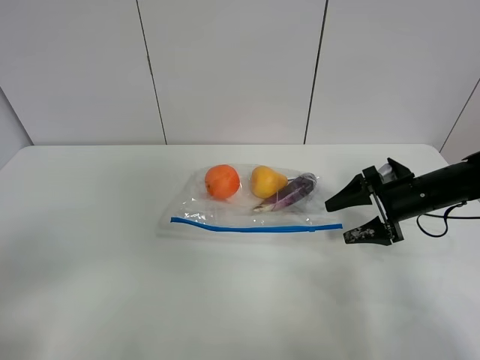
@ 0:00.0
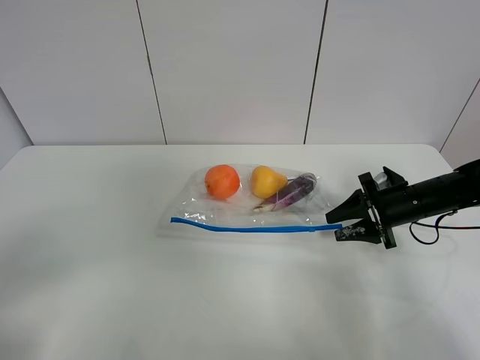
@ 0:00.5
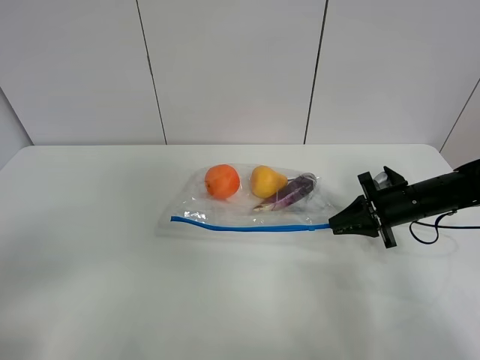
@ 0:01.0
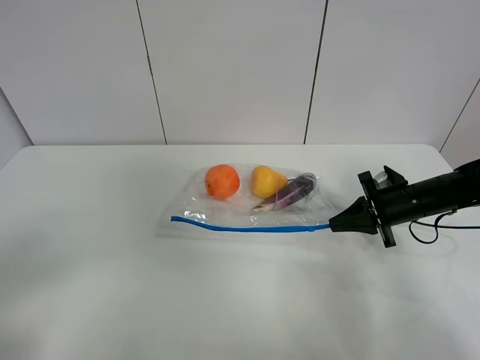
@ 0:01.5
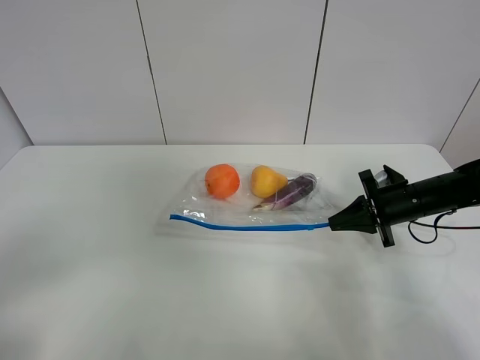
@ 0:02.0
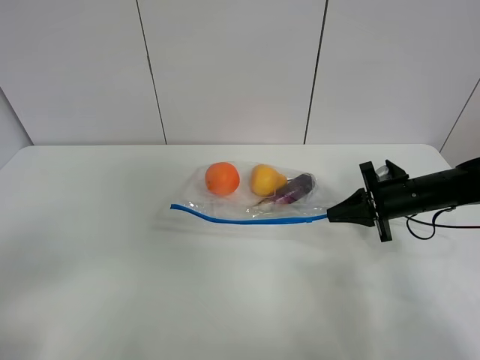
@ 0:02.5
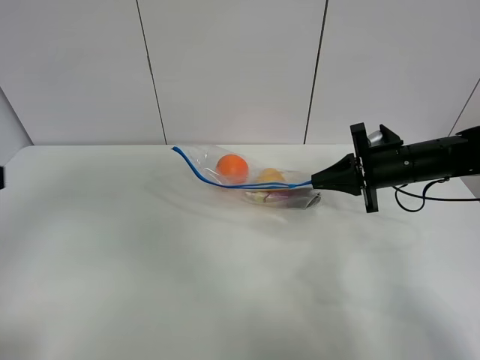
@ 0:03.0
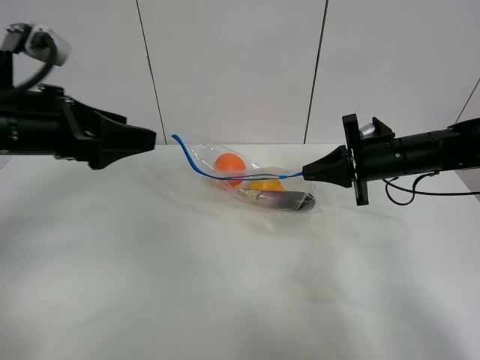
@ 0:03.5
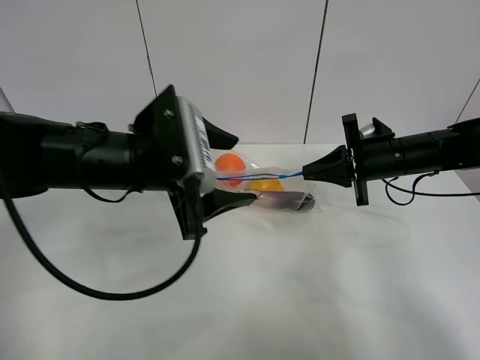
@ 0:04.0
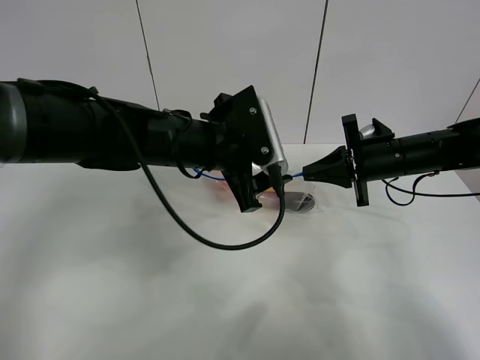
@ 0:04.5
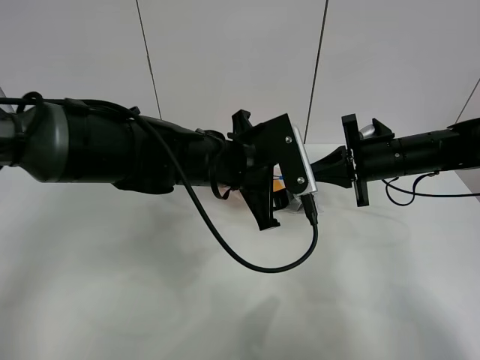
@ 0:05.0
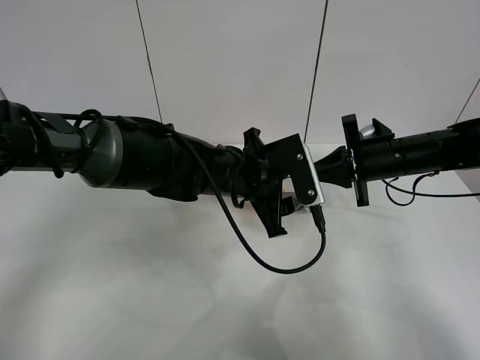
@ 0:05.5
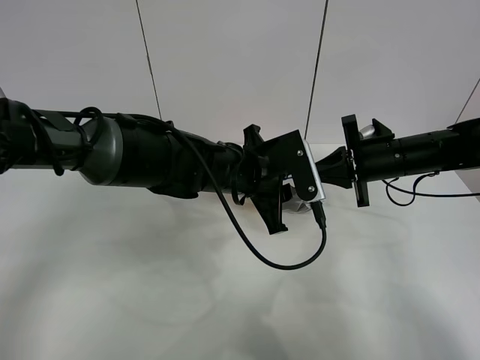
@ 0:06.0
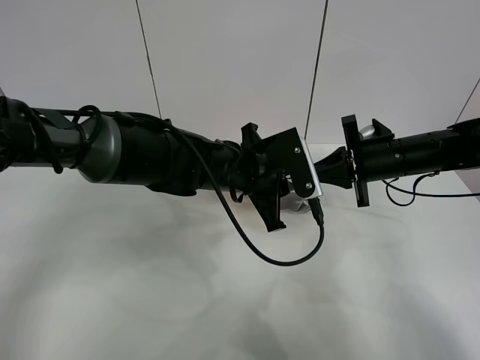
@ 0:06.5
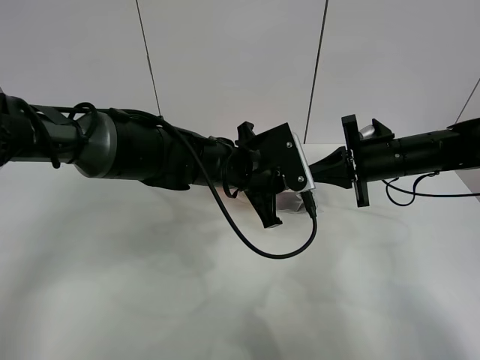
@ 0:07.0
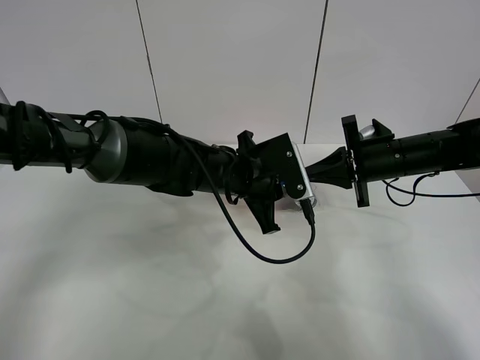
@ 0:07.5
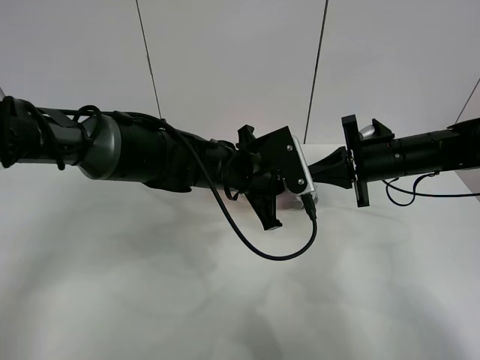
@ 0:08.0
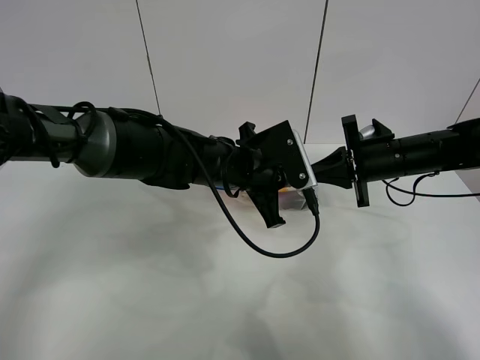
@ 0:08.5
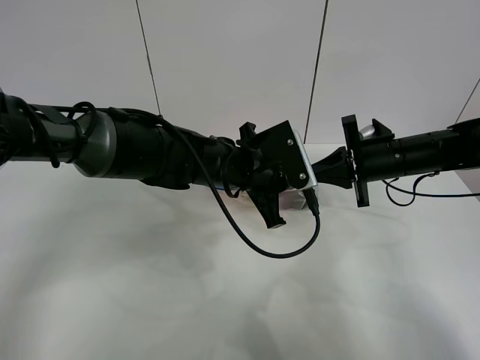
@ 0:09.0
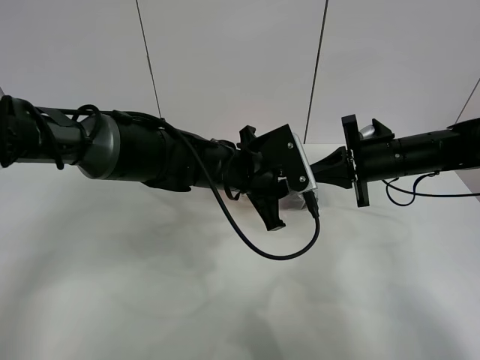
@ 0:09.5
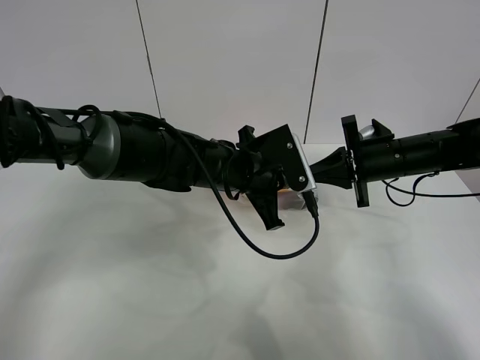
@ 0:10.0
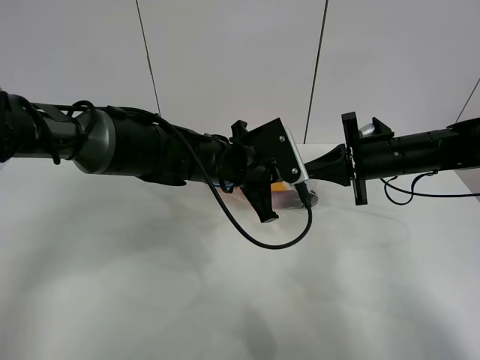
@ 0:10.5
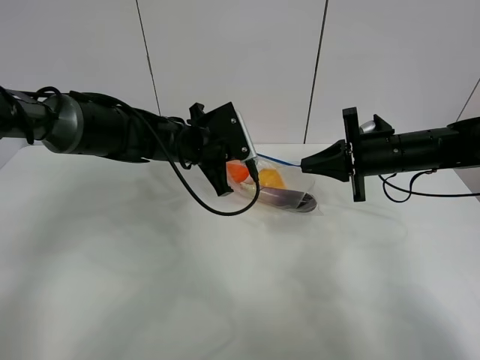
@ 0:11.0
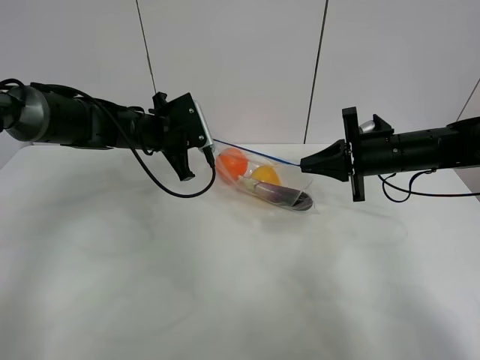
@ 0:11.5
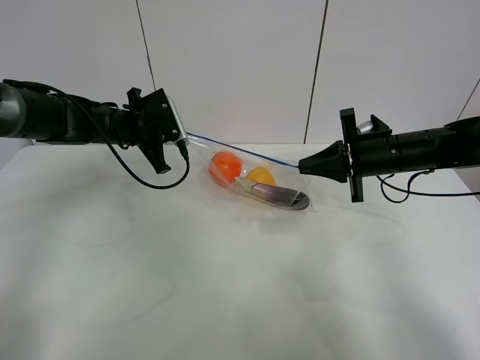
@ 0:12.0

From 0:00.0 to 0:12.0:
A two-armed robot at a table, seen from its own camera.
Step, from 0:01.5 to 0:03.0: Lift the fruit bag with your right gripper.
From 0:00.0 to 0:02.0: The right gripper closes up.
From 0:02.0 to 0:04.0: The right gripper shifts some 10 cm upward and to the left, while the left gripper shifts about 35 cm forward and to the right.
From 0:04.0 to 0:06.0: The left gripper shifts about 15 cm to the right, downward and forward, and closes its fingers.
From 0:06.0 to 0:08.0: The grippers make only small movements.
From 0:08.0 to 0:10.0: Both grippers stay put.
From 0:10.0 to 0:12.0: The left gripper goes about 20 cm to the left and forward.

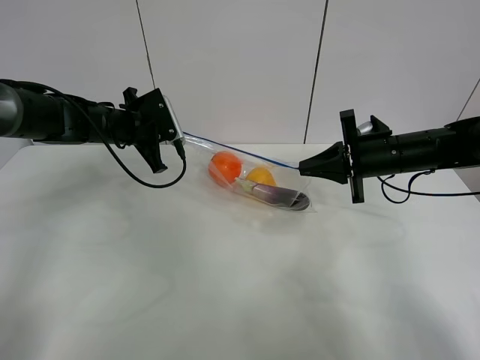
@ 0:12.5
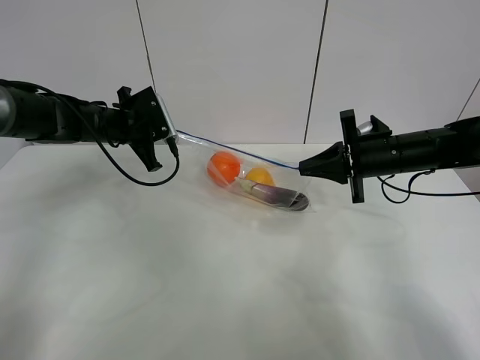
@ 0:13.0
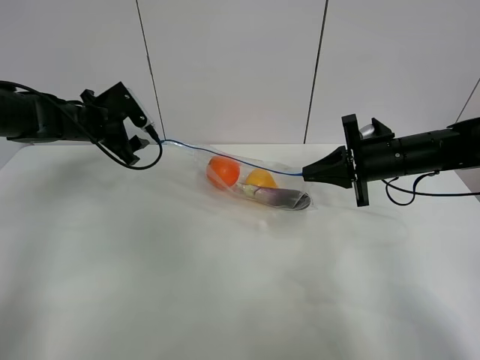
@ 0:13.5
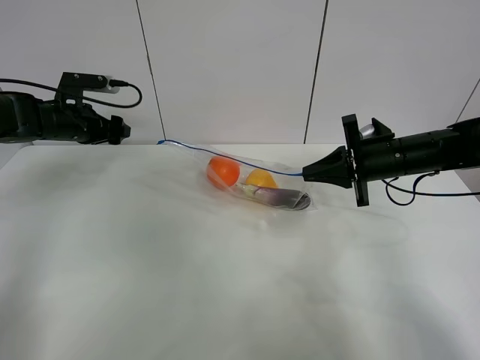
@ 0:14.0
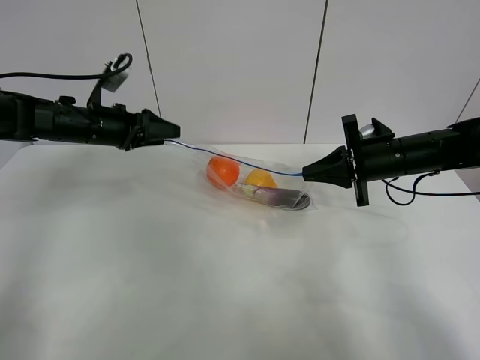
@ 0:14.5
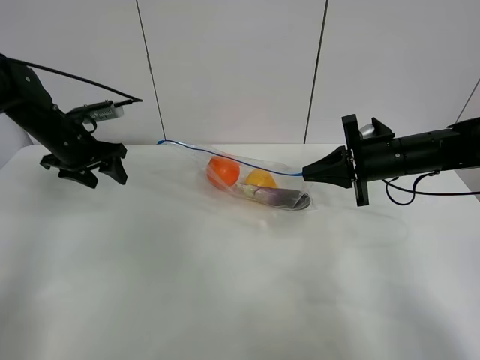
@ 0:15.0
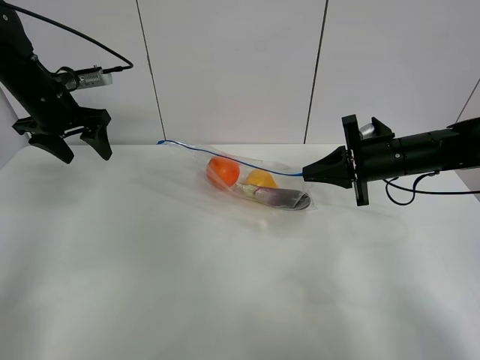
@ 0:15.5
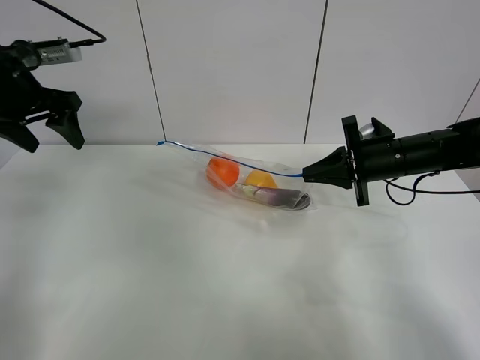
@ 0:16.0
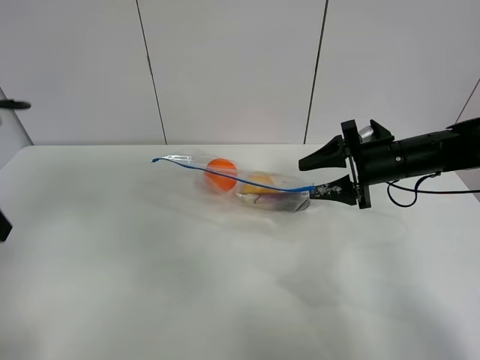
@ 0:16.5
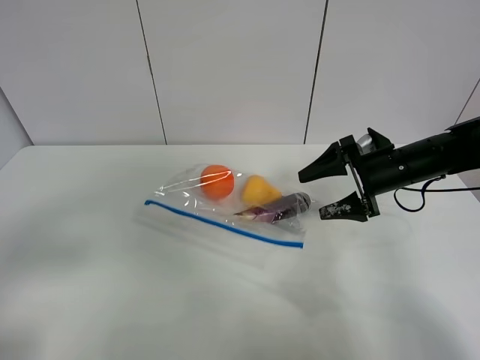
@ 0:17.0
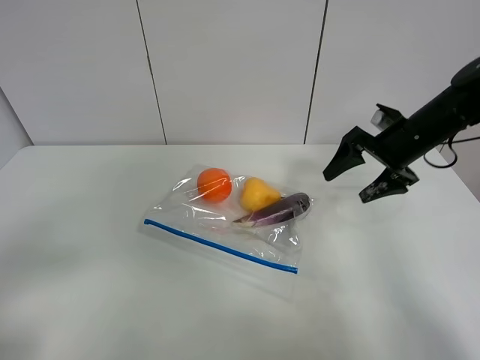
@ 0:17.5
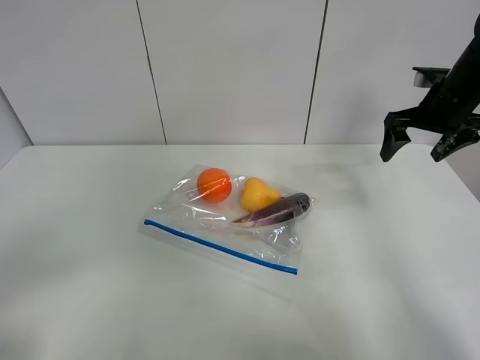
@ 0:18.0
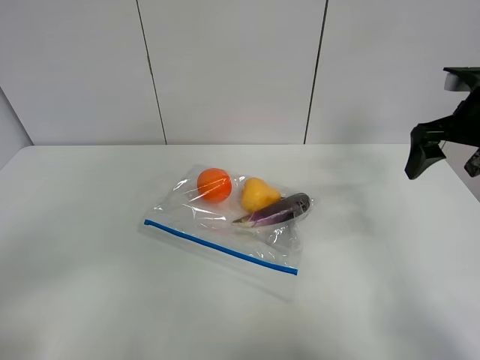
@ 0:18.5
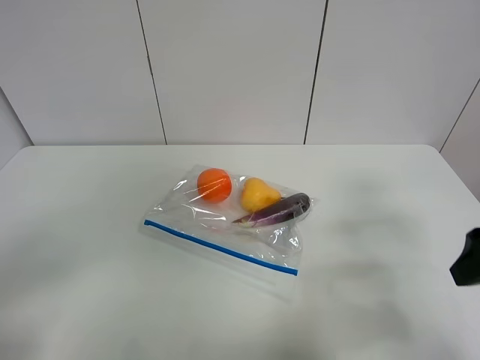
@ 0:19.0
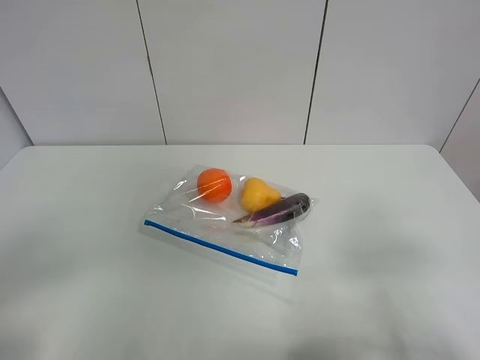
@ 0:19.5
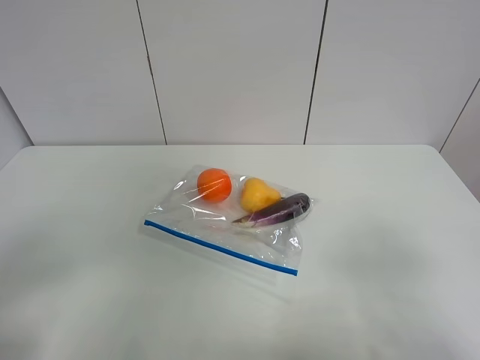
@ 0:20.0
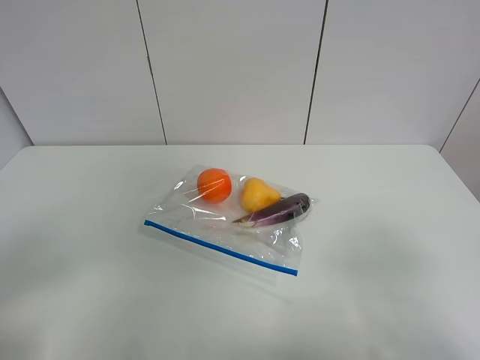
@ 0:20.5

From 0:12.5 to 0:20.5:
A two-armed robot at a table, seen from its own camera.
From 0:12.5 to 0:14.5: The left gripper opens.
From 0:14.5 to 0:16.5: The right gripper opens, while the left gripper heads backward and upward, covering approximately 25 cm.
From 0:16.5 to 0:18.5: The right gripper heads upward and to the right, covering approximately 15 cm. The left gripper heads backward, covering some 20 cm.
From 0:18.5 to 0:20.5: The right gripper moves backward, approximately 30 cm.

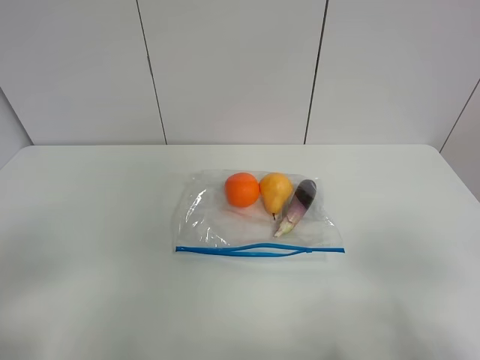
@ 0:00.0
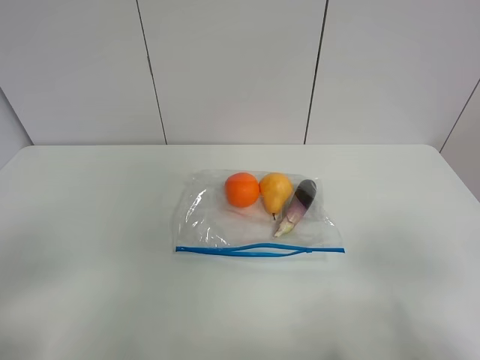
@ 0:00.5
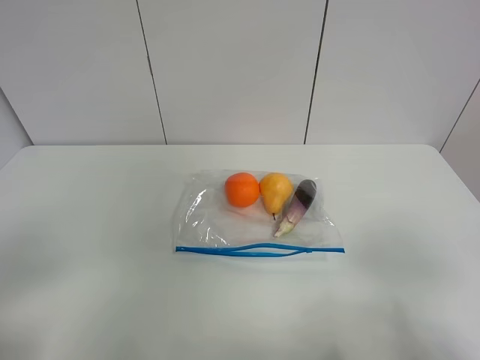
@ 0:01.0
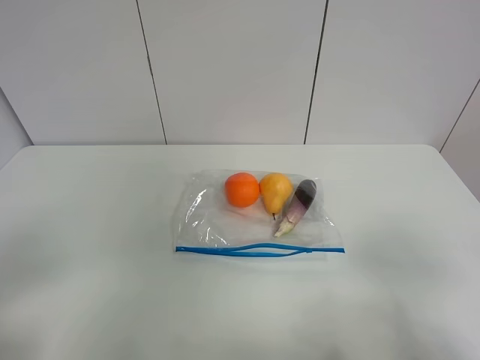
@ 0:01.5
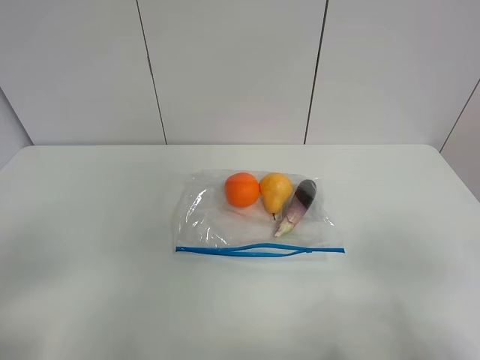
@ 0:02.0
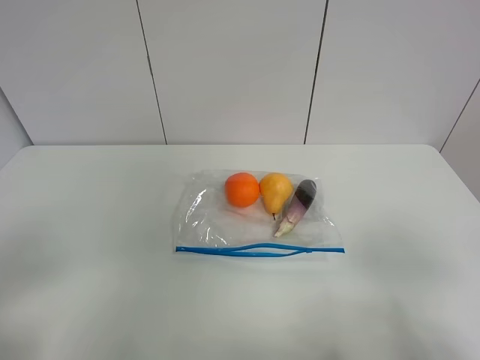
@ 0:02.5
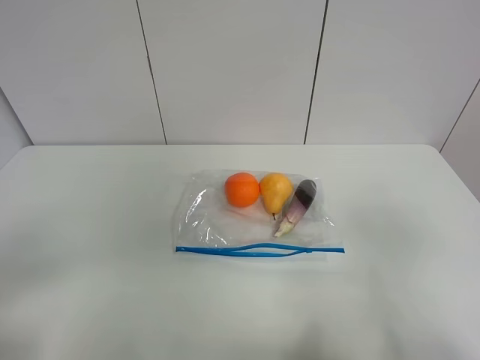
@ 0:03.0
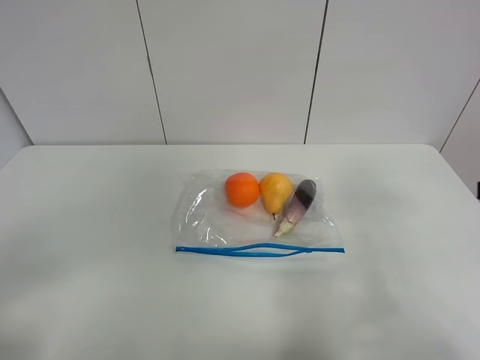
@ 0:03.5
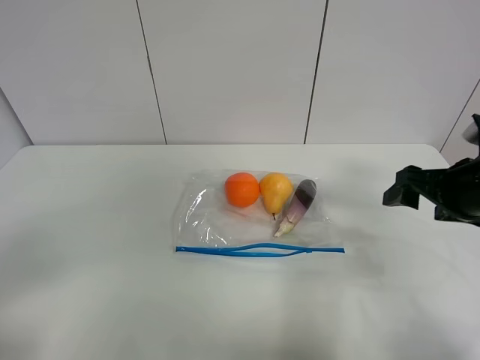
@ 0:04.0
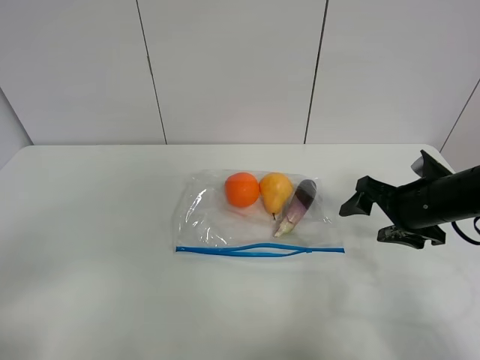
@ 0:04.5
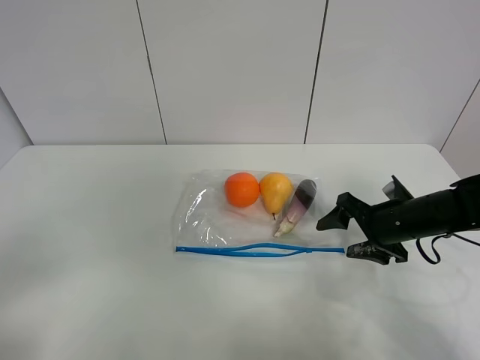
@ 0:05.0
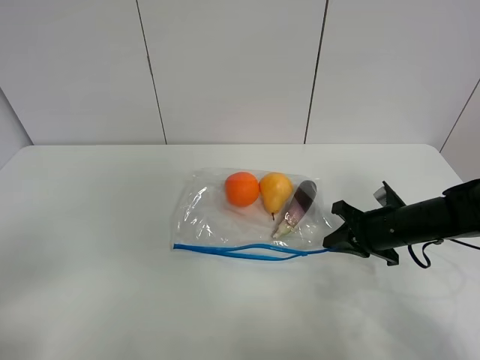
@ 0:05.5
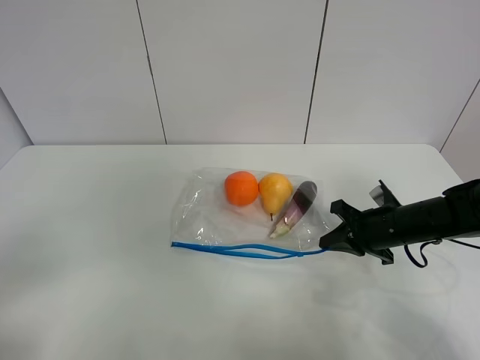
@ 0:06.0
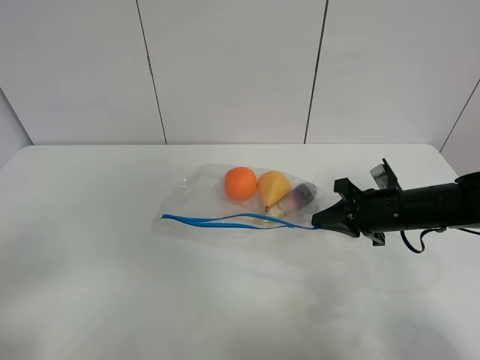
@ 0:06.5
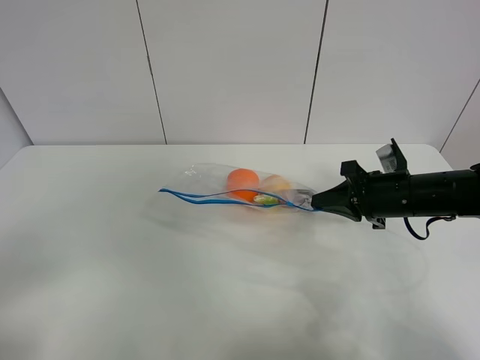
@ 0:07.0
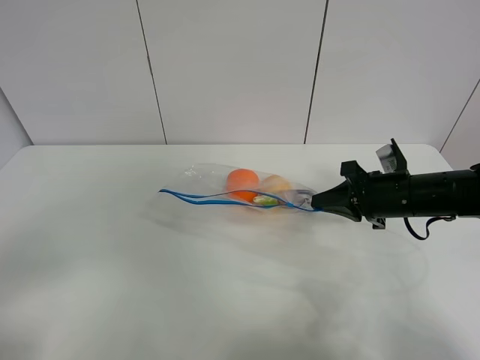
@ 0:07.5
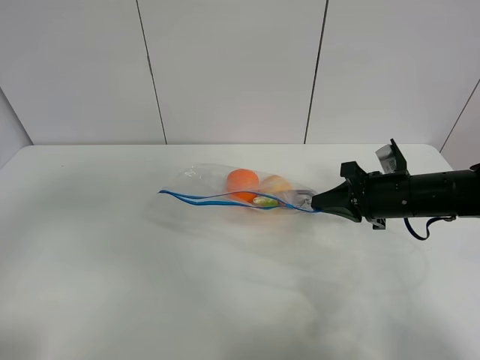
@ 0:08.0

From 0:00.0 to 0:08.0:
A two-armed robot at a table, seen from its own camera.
Step, from 0:00.0 to 0:05.5: Grasp the fruit bag with right gripper.
Step, from 0:06.0 to 0:06.5: Lift the fruit bag with your right gripper.
From 0:00.0 to 0:02.0: The two grippers keep their place.
From 0:02.0 to 0:04.0: The right gripper travels forward by about 25 cm.
From 0:04.0 to 0:06.0: The right gripper is displaced downward by approximately 15 cm, and closes its fingers.
From 0:06.0 to 0:08.0: The left gripper shifts about 15 cm forward and upward. The right gripper goes about 5 cm upward.
